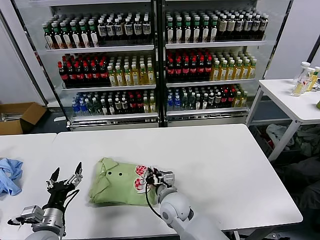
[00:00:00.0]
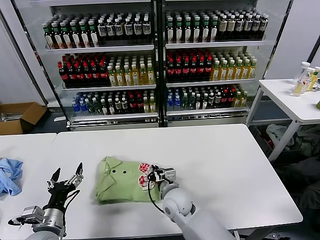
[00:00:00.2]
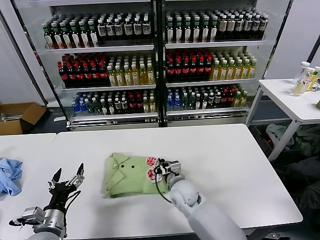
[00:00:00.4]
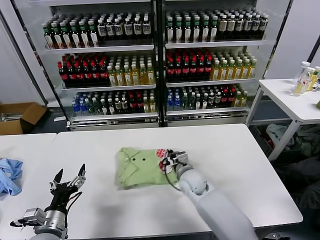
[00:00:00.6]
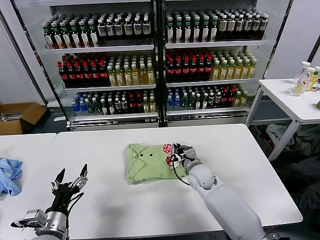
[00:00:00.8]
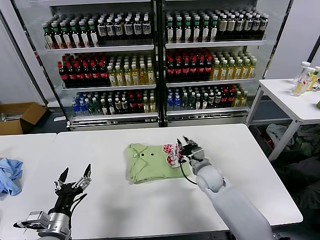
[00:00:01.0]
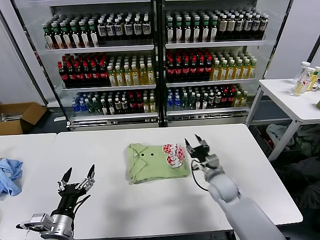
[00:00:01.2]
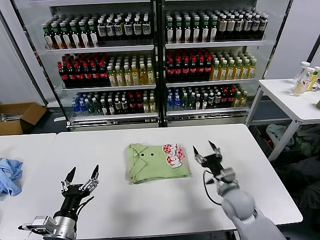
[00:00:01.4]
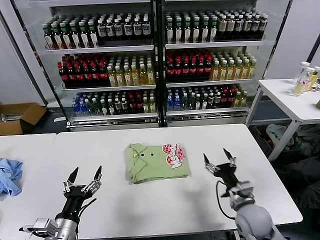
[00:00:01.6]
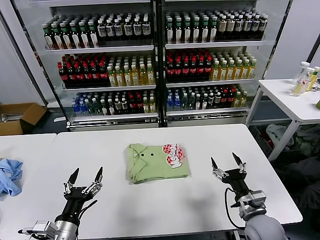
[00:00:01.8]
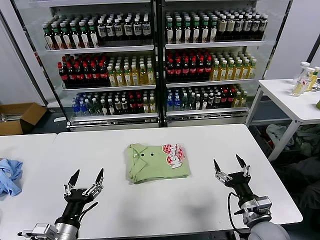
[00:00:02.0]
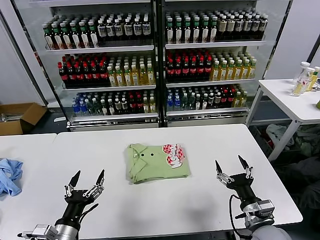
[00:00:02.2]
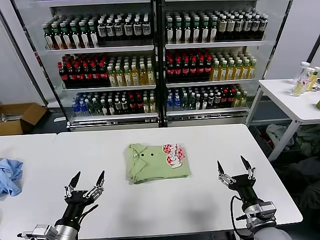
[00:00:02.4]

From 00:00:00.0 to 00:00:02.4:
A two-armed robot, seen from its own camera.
Task of the whole recording: fold and organize the clothes.
From 00:00:00.0 to 00:00:01.2: The right gripper shifts approximately 20 cm to the right and forward.
From 00:00:01.2 to 00:00:02.4: The right gripper travels backward and to the right by roughly 20 cm, and opens; the left gripper ends up about 5 cm from where it was.
